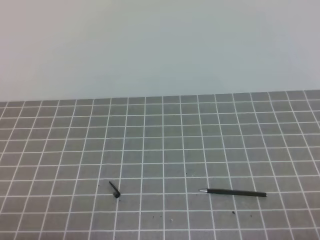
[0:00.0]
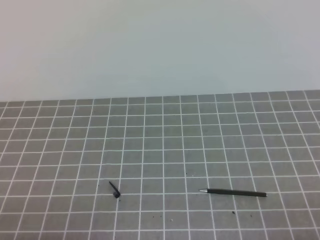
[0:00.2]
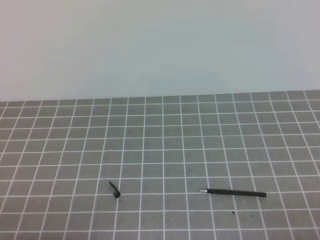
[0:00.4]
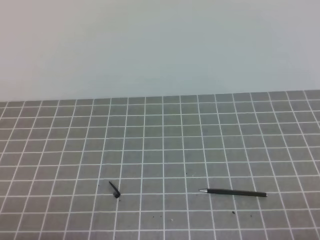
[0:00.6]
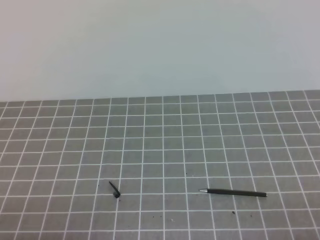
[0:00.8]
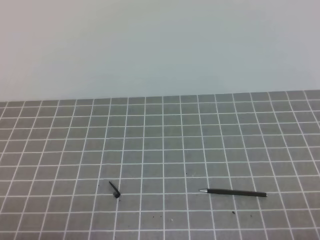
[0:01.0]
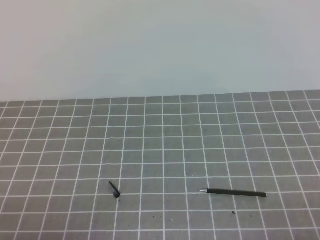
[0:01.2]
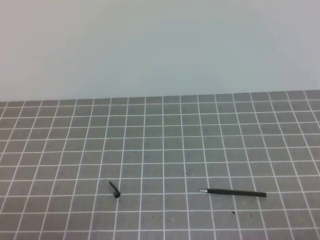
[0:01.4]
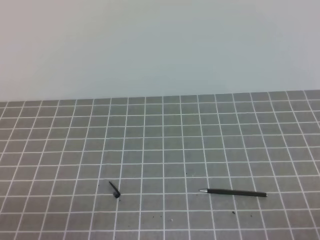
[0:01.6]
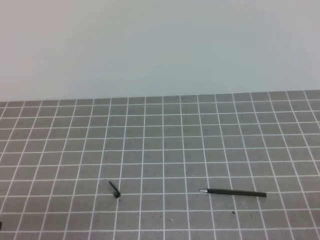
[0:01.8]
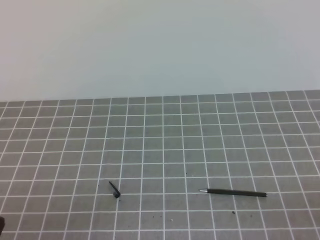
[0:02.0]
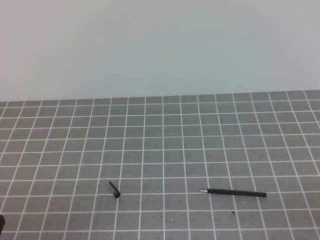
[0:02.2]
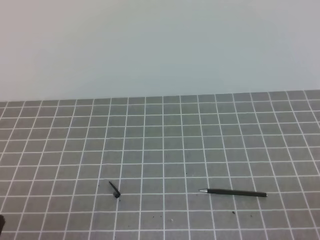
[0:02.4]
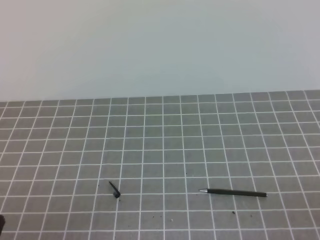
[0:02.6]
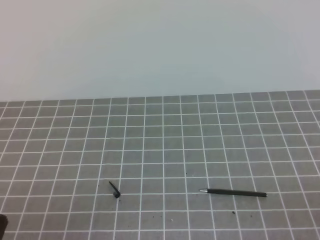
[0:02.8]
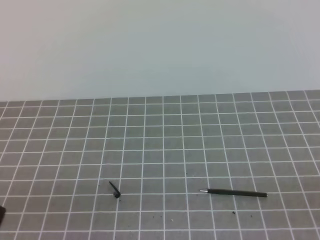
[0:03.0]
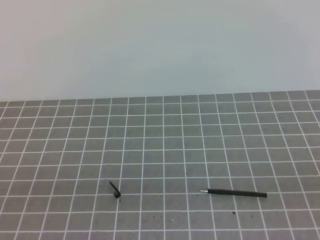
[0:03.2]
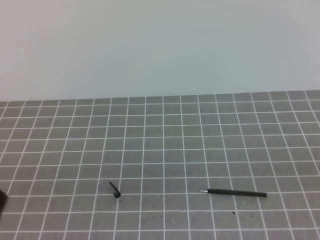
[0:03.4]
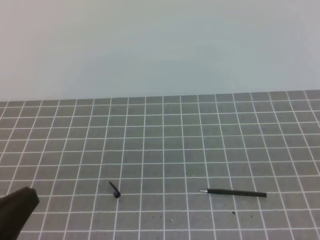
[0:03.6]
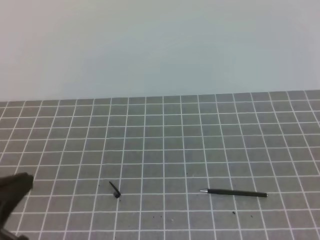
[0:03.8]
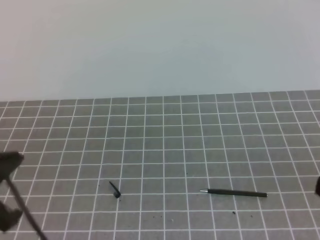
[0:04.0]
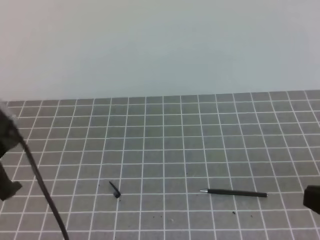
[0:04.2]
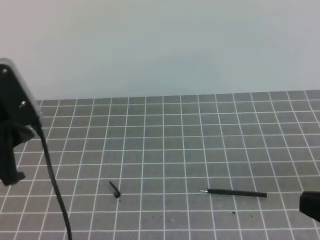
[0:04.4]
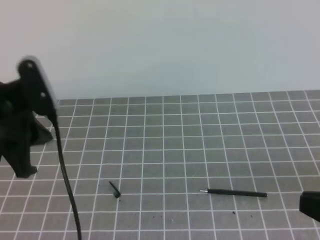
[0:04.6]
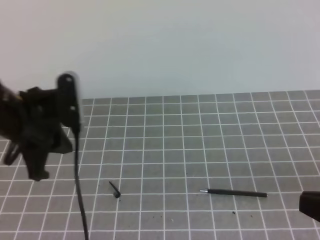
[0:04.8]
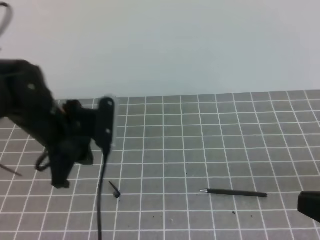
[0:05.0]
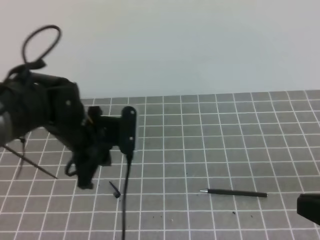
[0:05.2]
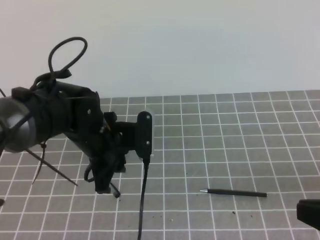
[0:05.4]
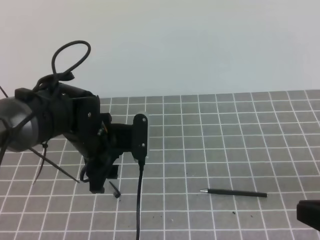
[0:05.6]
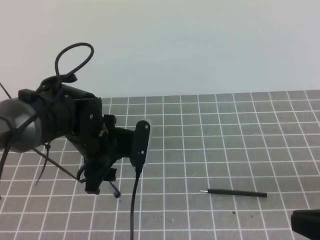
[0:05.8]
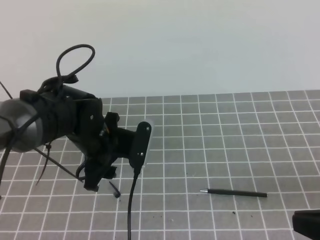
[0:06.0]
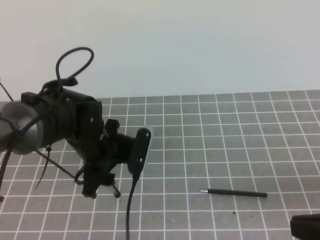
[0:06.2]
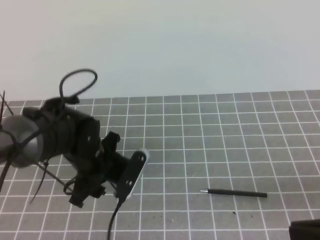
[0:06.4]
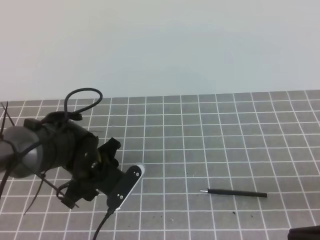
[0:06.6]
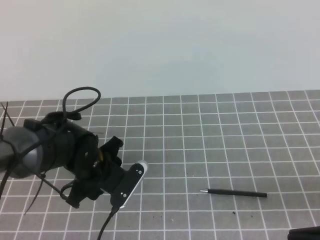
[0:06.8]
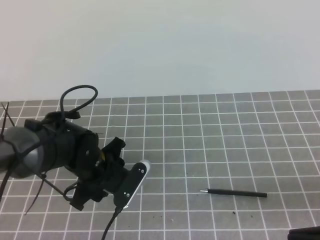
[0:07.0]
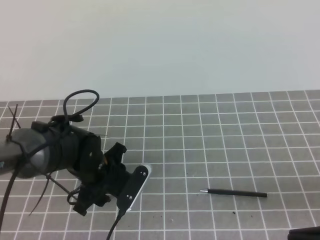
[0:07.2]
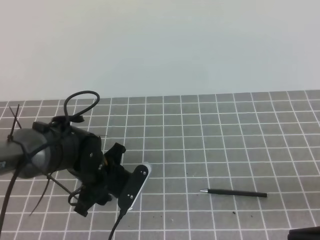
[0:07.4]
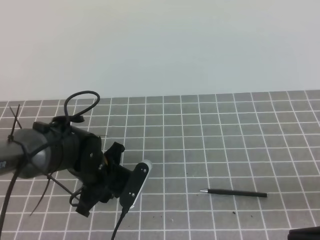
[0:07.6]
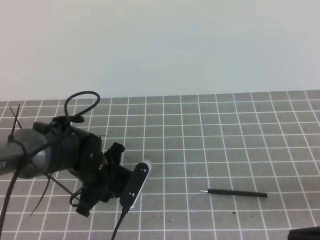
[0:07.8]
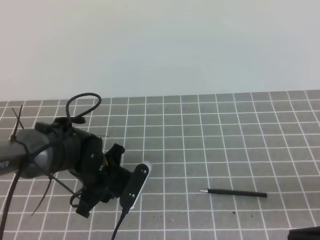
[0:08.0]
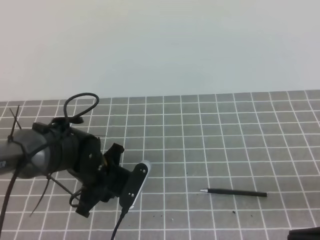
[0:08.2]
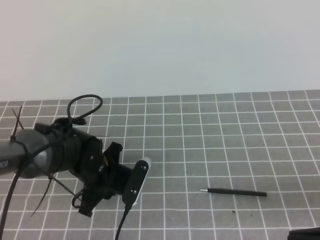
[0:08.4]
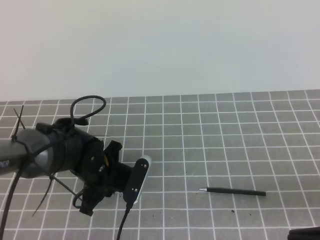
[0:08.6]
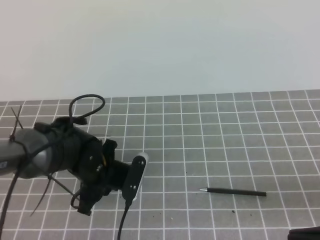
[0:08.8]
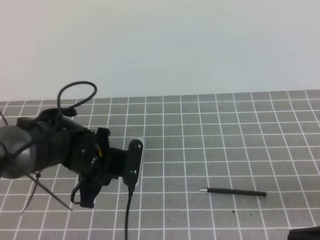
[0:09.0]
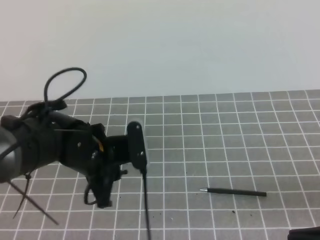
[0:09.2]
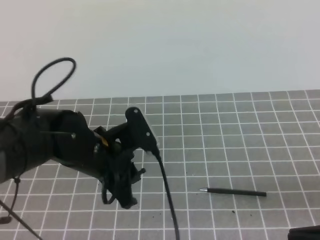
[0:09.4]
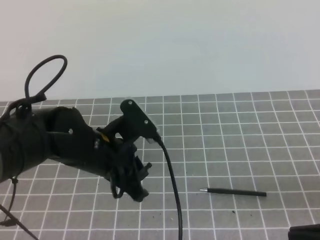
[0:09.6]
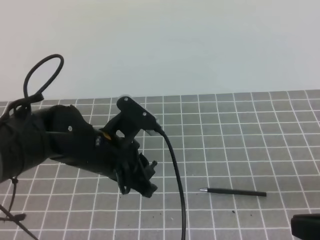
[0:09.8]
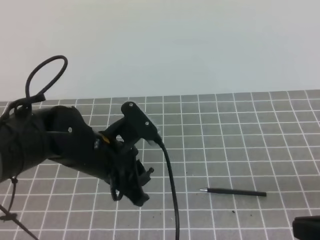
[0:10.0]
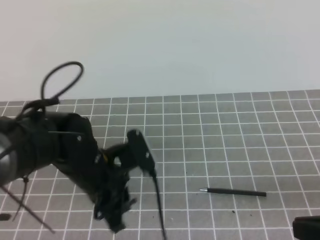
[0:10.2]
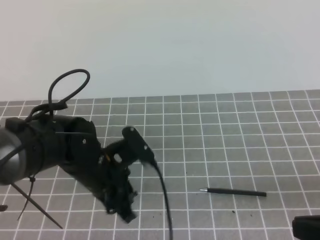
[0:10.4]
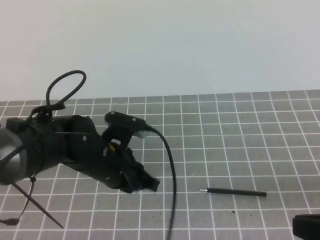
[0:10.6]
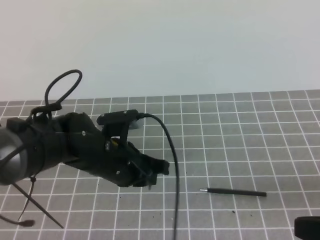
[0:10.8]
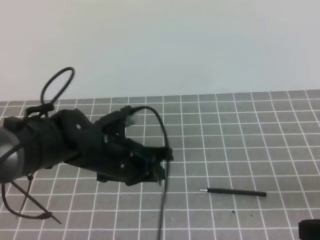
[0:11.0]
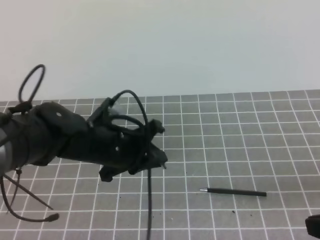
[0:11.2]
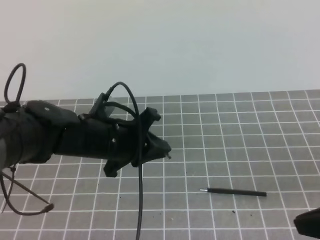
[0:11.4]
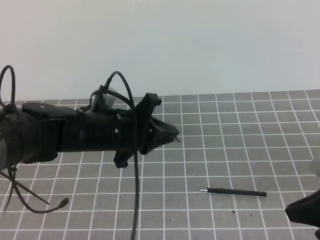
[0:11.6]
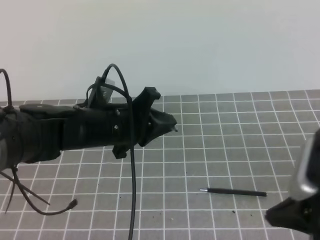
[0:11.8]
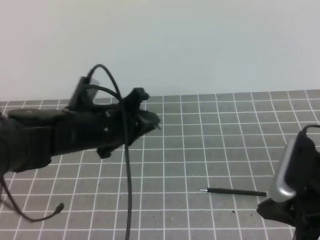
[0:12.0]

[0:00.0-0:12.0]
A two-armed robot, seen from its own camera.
Task of the whole recording: on the grey tablecloth, hold the pen cap in one hand and the pen in the other, then cover the pen cap.
0:03.0 to 0:04.4: The right gripper travels forward, upward and to the left by some 10 cm. Meanwhile the left gripper travels forward and upward by about 20 cm.
0:04.4 to 0:06.0: The left gripper shifts about 20 cm to the right, downward and forward, and opens up.
0:06.0 to 0:07.6: The left gripper is displaced downward by about 5 cm, and closes up.
0:07.6 to 0:09.0: The left gripper closes.
0:09.0 to 0:10.4: The left gripper moves roughly 5 cm.
0:10.4 to 0:12.0: The left gripper moves upward, some 5 cm, while the right gripper moves forward, approximately 10 cm.

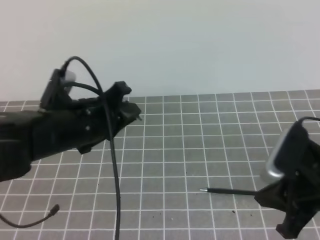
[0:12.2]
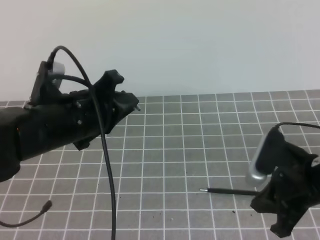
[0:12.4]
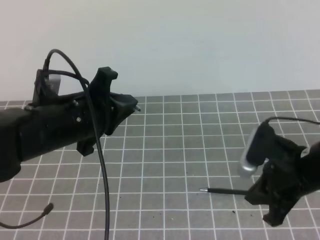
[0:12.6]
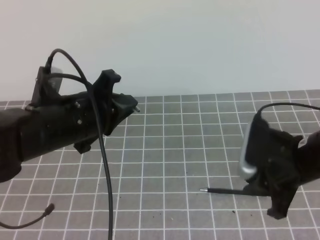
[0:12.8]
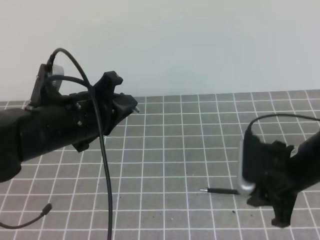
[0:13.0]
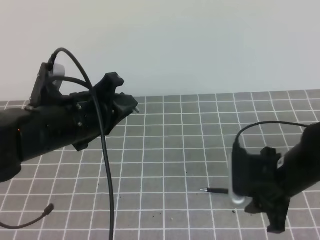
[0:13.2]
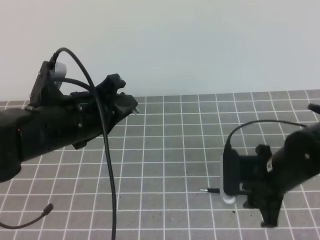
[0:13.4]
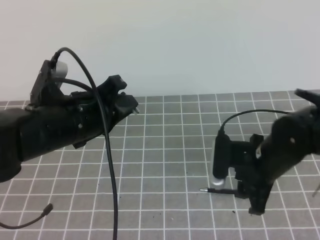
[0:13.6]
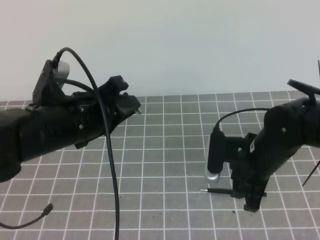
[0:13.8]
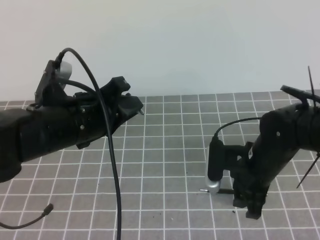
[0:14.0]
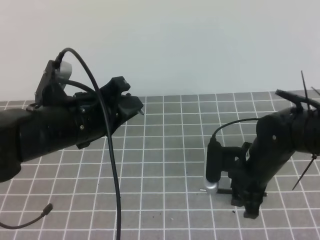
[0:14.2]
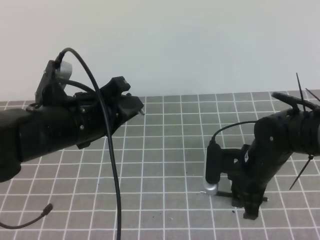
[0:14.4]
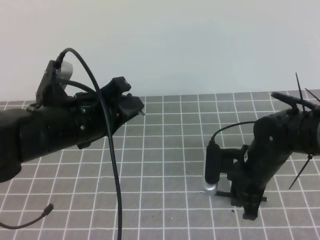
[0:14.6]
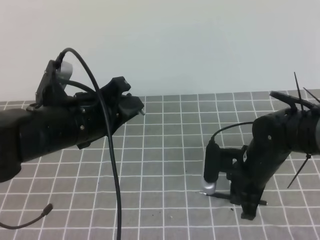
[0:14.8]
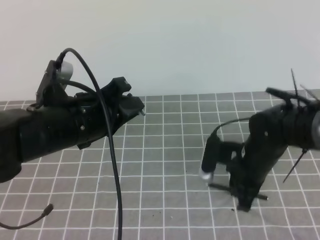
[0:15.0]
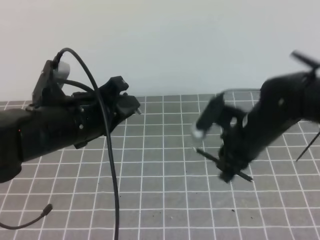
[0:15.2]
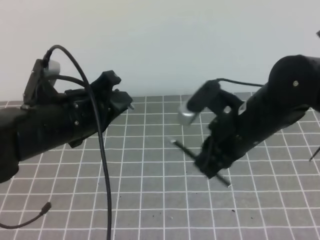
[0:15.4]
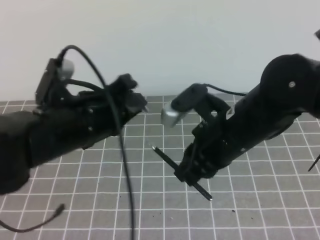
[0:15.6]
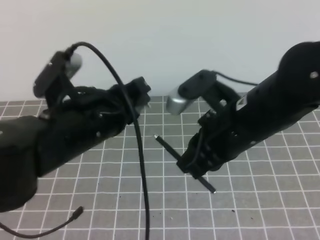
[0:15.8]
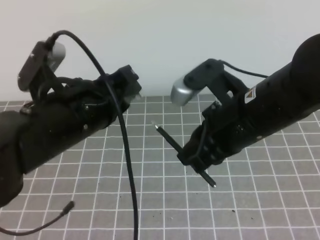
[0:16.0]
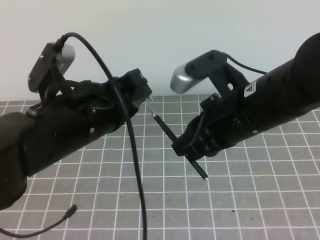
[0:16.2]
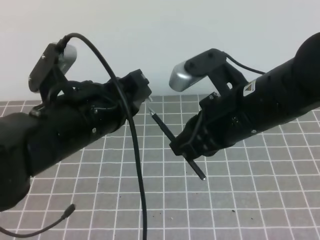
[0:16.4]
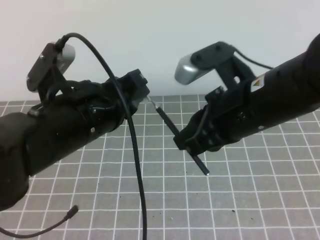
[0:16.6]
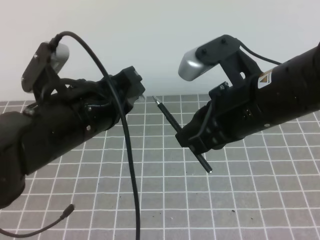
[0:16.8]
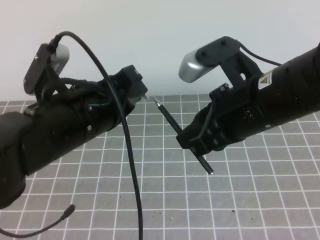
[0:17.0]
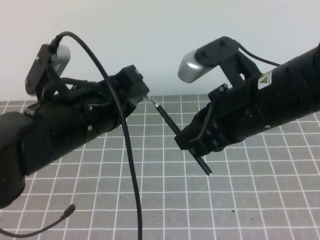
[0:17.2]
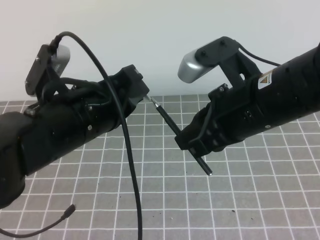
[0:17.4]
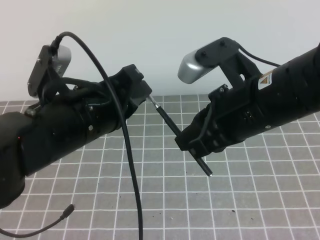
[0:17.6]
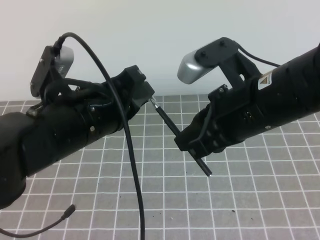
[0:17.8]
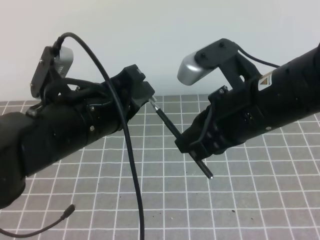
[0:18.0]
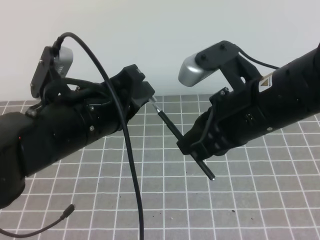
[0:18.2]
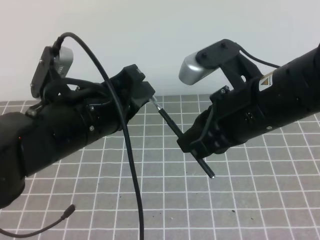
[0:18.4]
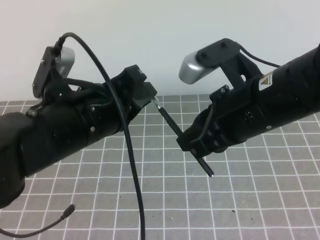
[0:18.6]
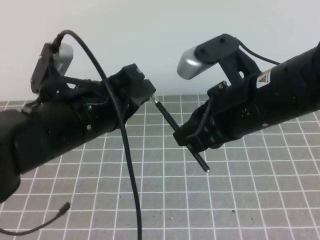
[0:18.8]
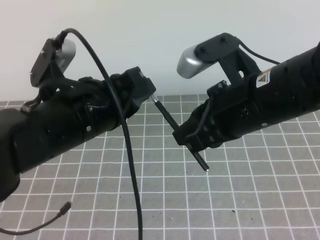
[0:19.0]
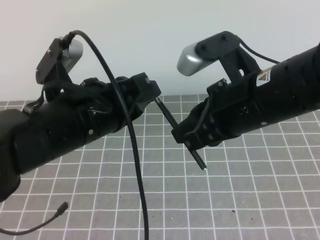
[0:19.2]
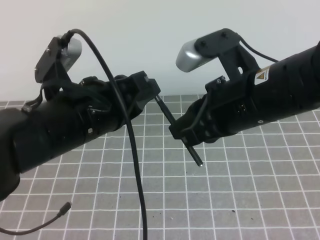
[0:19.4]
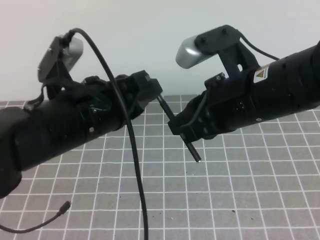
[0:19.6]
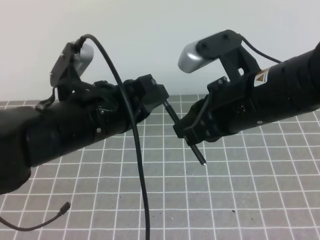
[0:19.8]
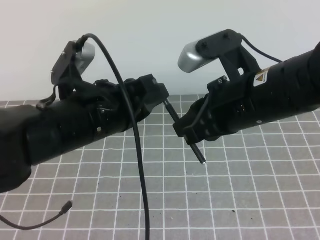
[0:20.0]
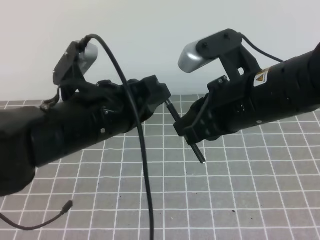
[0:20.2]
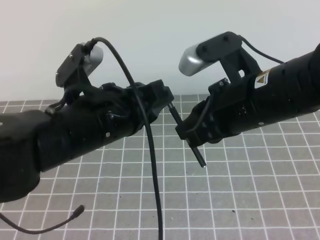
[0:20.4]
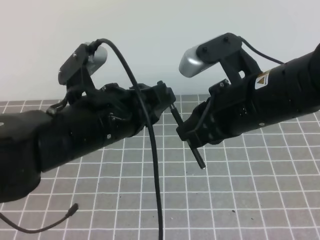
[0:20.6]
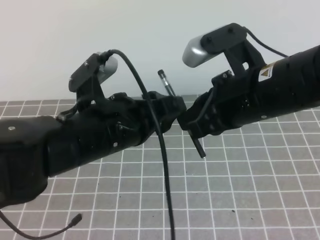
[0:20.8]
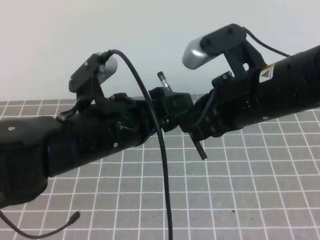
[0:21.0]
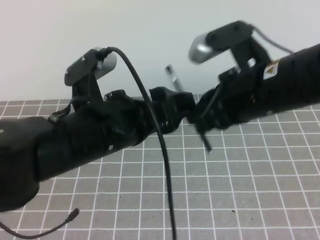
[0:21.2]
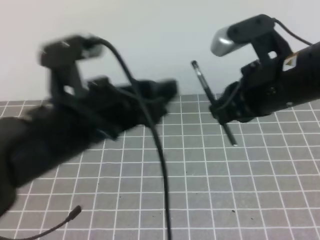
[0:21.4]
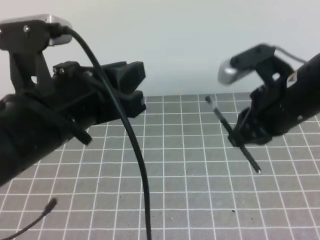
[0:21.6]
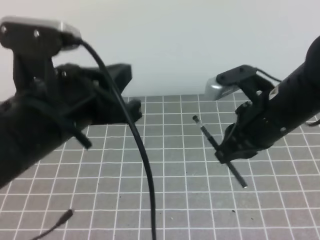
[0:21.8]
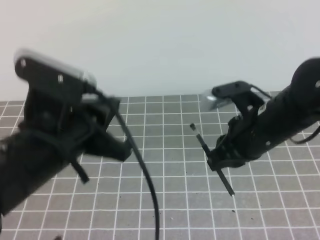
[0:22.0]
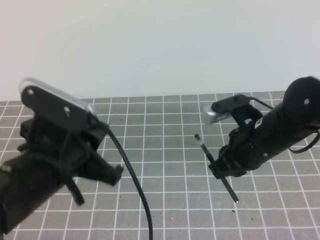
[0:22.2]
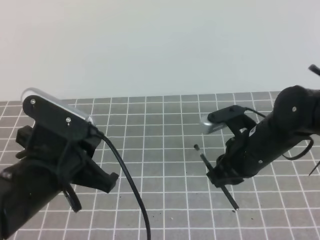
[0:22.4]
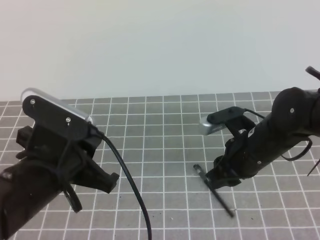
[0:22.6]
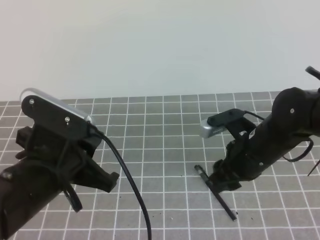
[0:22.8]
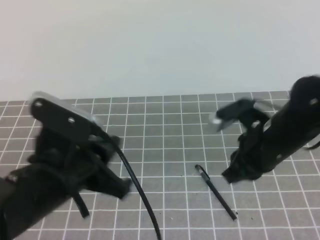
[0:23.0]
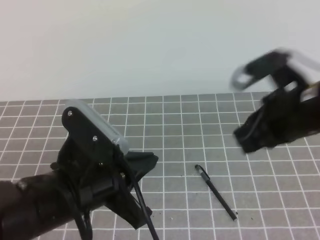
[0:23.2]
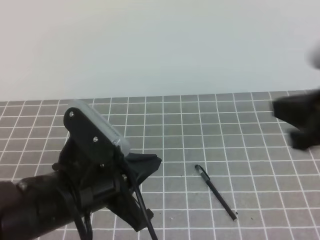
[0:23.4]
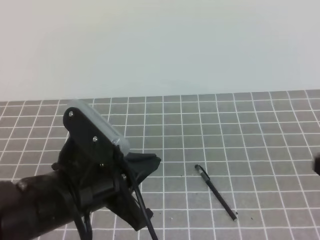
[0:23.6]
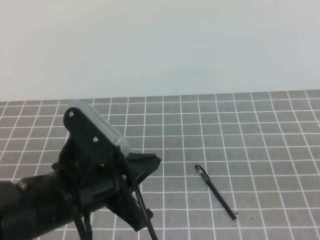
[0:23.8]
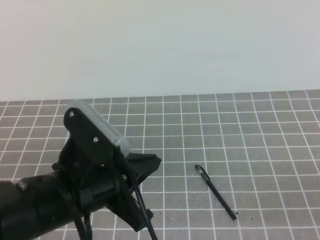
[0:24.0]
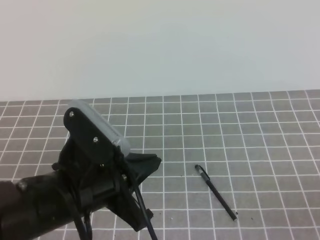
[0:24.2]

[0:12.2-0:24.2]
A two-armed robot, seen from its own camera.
Task of the whole recording: on the grey tablecloth, hold the pen cap in one hand and the pen in the other, then cover the pen cap.
0:12.2 to 0:13.8: The right gripper travels forward and to the left by approximately 10 cm, and opens up.
0:13.8 to 0:15.2: The right gripper closes up.
0:15.2 to 0:16.6: The right gripper travels upward and backward by about 15 cm. The left gripper shifts by about 5 cm.
0:16.6 to 0:19.8: The grippers move only a little.
0:19.8 to 0:21.2: The left gripper opens up.
0:21.2 to 0:22.6: The left gripper is displaced to the left and downward by roughly 10 cm, and closes, while the right gripper is displaced downward by some 15 cm, and opens its fingers.
0:22.6 to 0:24.2: The right gripper travels backward and to the right by some 30 cm, and closes up.
